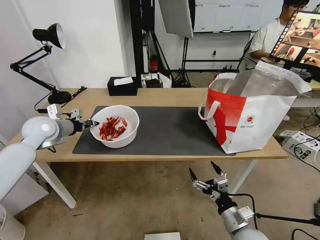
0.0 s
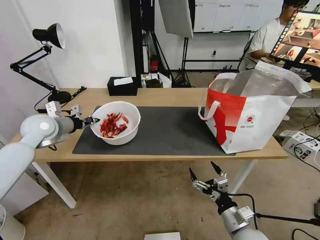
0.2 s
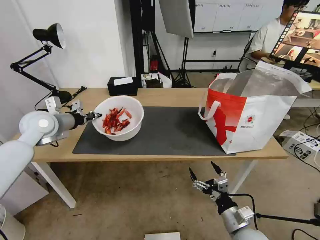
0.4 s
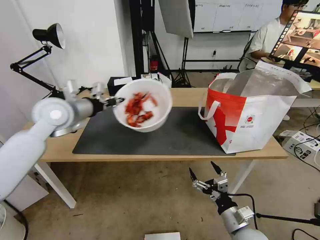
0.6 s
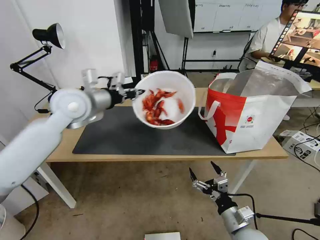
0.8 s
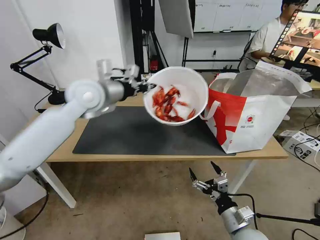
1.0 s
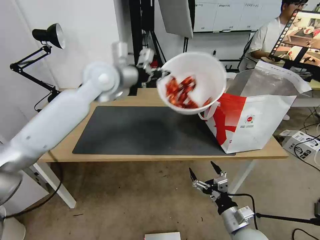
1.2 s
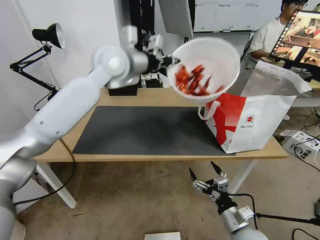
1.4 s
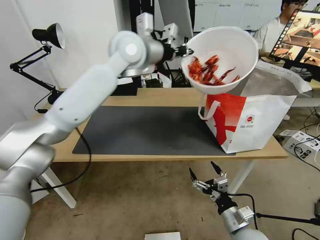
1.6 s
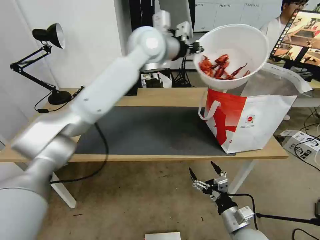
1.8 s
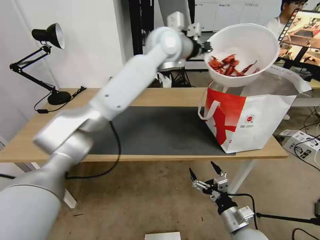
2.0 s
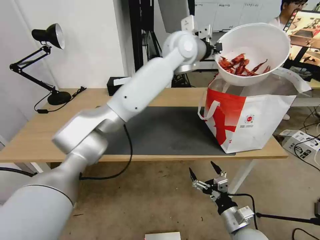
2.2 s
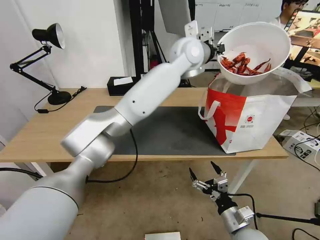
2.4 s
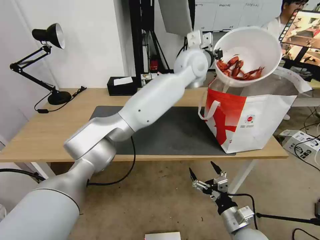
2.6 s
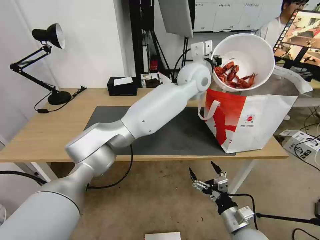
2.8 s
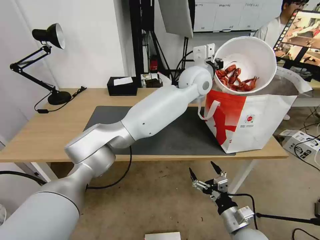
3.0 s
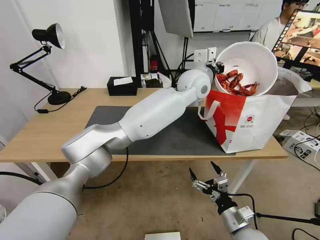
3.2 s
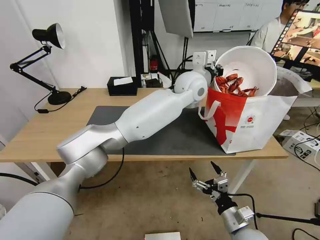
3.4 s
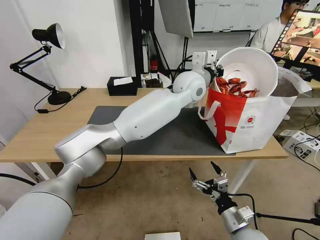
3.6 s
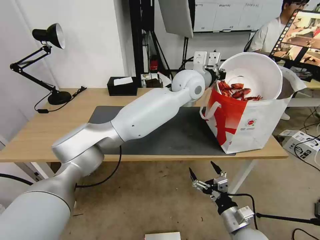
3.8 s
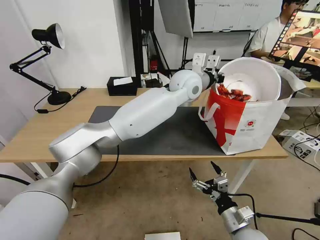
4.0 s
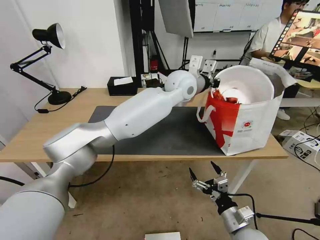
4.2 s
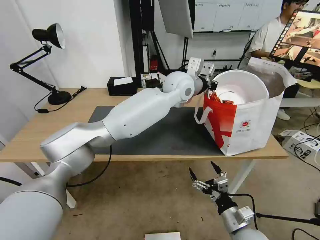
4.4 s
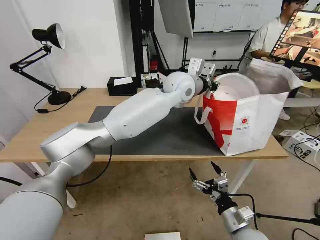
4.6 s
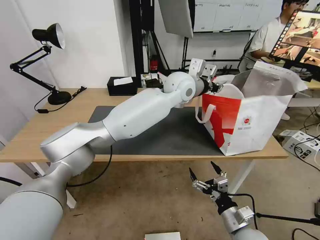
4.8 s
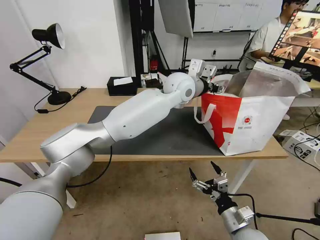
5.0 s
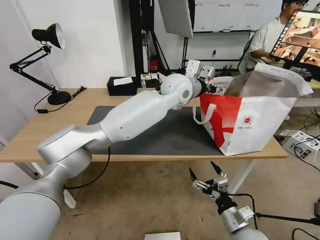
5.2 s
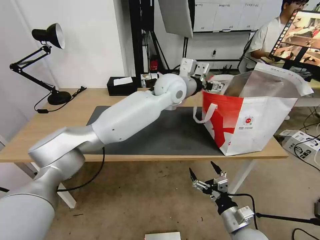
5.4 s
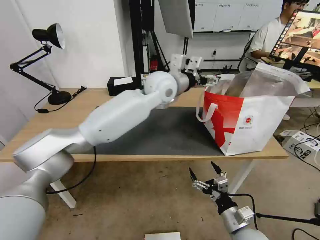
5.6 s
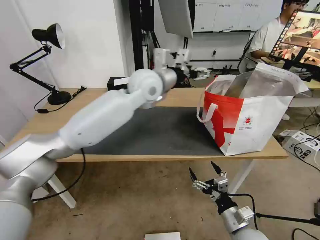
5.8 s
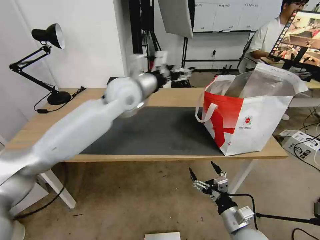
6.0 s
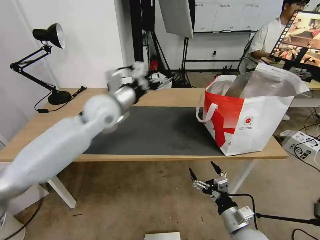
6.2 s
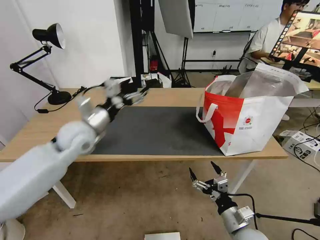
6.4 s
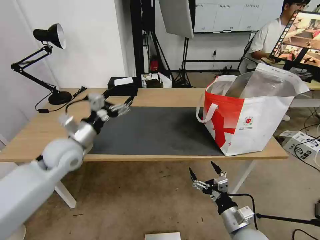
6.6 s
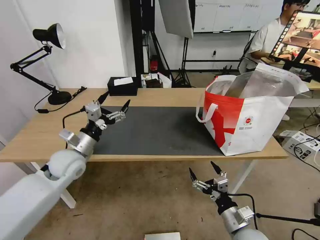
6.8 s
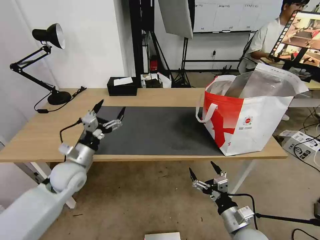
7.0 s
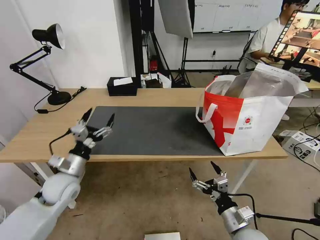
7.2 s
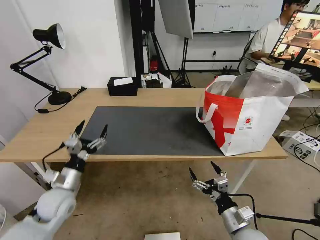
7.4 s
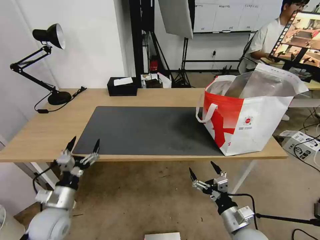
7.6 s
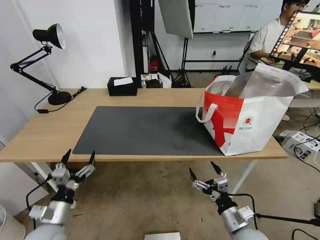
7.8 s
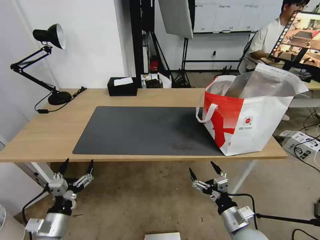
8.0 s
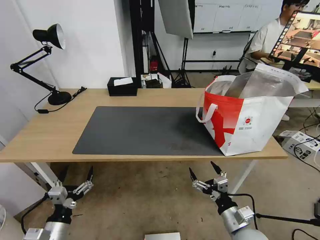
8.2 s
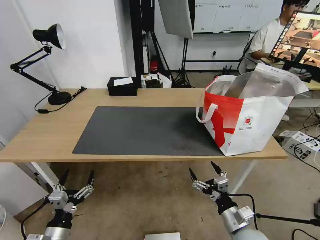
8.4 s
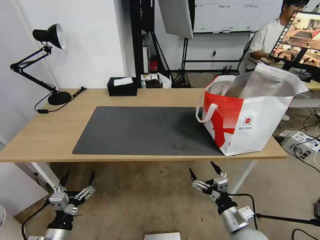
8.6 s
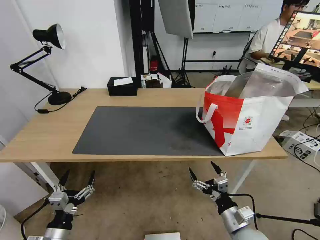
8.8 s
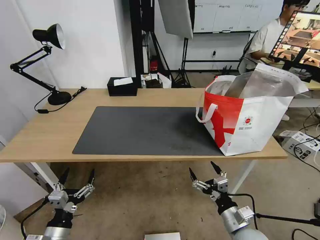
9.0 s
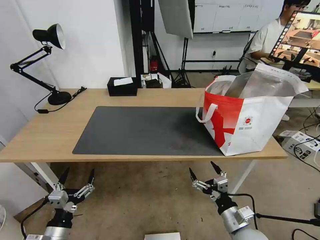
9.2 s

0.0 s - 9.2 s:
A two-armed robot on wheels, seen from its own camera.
Task of the whole recording: Pick up the trash from the table and place it into the takeout bag.
0.0 s - 1.6 s: The left gripper goes about 35 cm to the right and upward.
1.6 s - 3.0 s: The left gripper moves to the right and downward, roughly 20 cm.
4.6 s - 6.2 s: The left gripper moves to the left, some 20 cm, and opens up.
6.2 s - 7.6 s: The left gripper heads downward, backward and to the left, covering some 35 cm.
7.6 s - 9.2 s: The left gripper travels backward by approximately 10 cm.

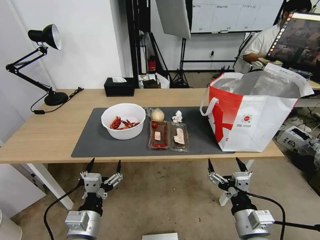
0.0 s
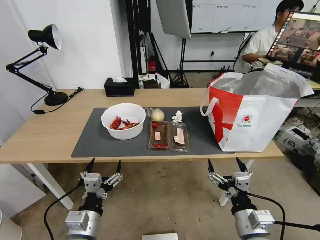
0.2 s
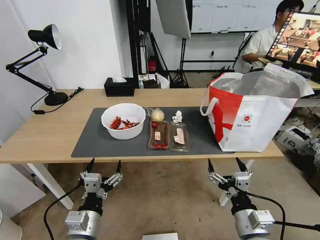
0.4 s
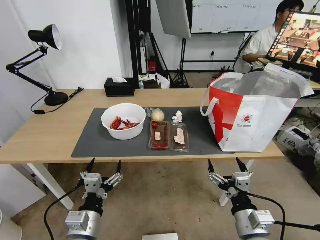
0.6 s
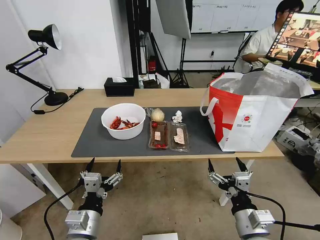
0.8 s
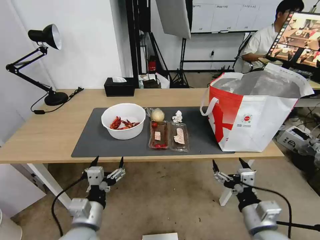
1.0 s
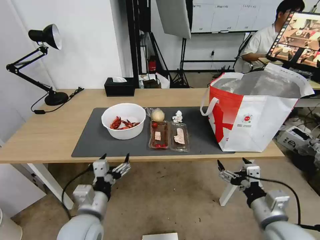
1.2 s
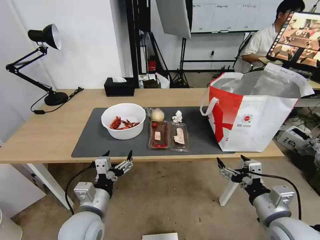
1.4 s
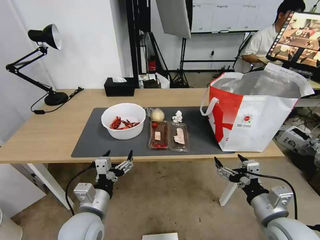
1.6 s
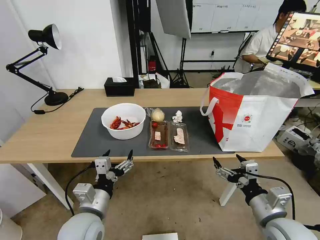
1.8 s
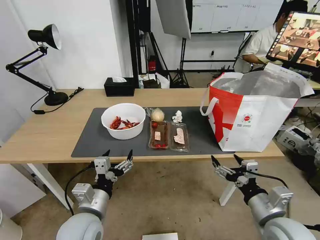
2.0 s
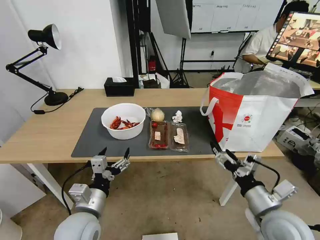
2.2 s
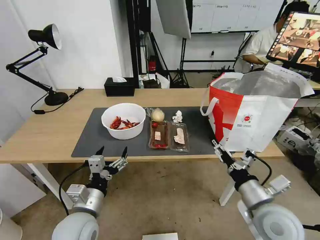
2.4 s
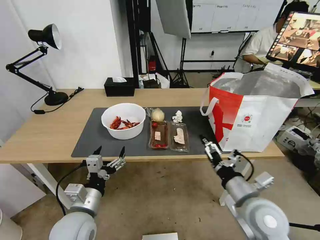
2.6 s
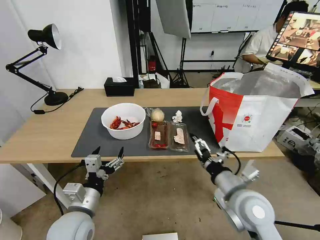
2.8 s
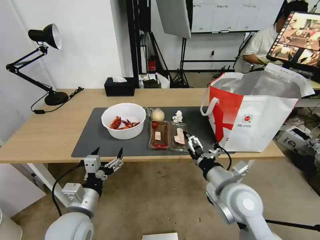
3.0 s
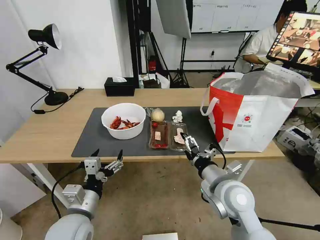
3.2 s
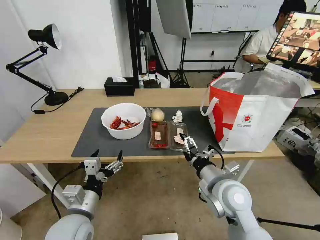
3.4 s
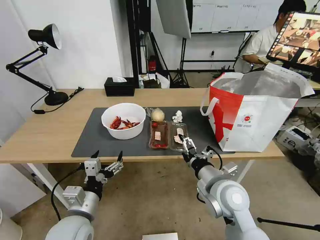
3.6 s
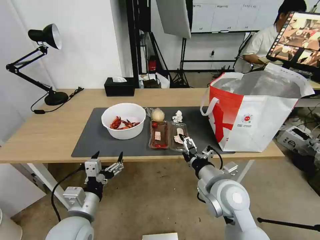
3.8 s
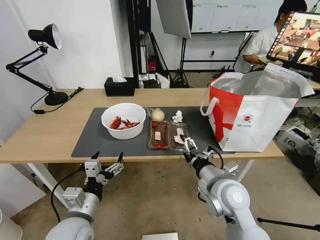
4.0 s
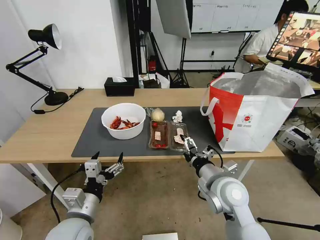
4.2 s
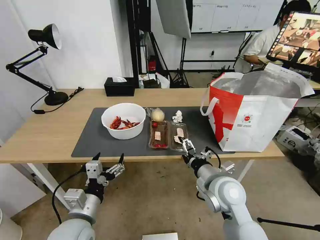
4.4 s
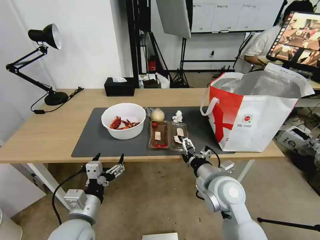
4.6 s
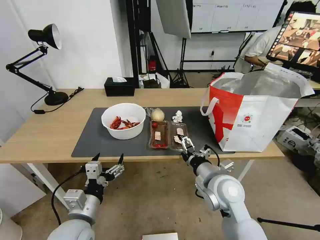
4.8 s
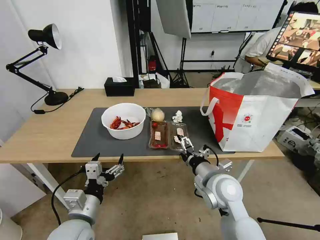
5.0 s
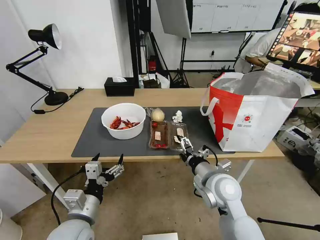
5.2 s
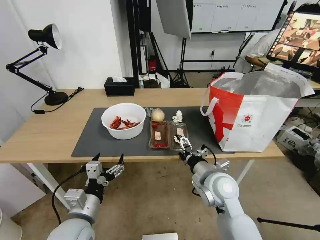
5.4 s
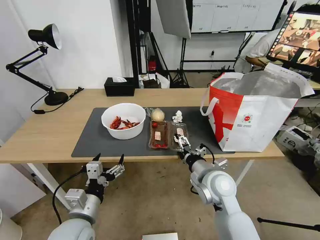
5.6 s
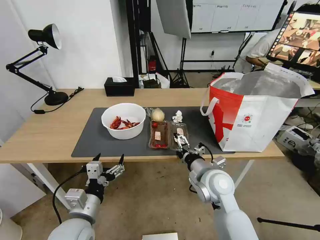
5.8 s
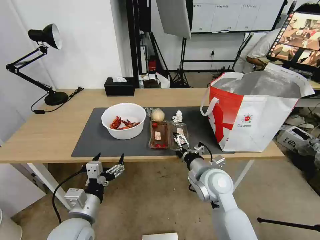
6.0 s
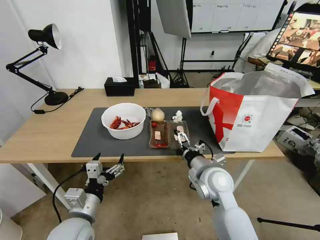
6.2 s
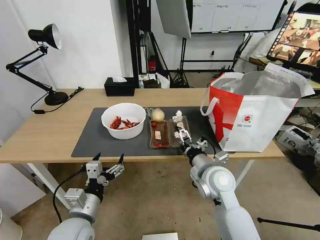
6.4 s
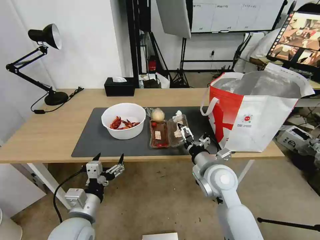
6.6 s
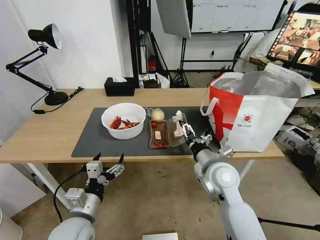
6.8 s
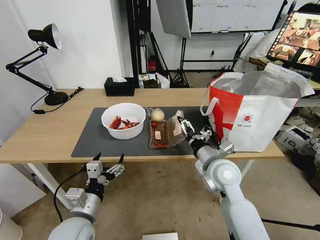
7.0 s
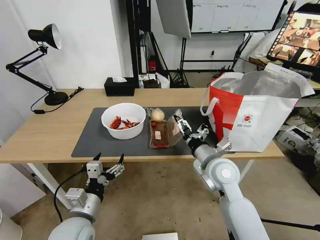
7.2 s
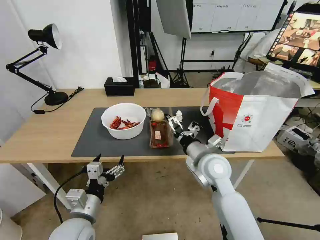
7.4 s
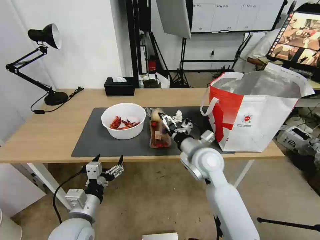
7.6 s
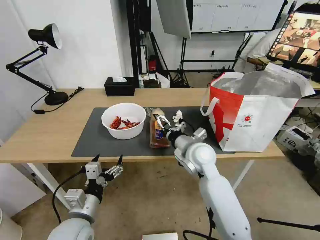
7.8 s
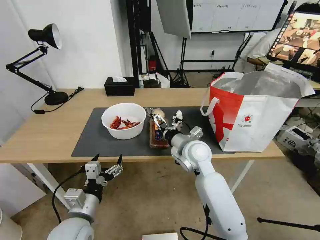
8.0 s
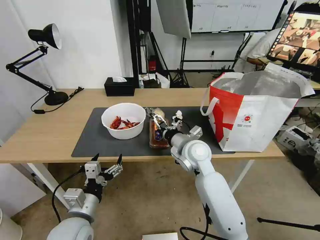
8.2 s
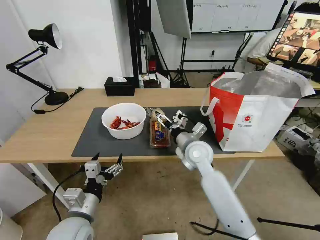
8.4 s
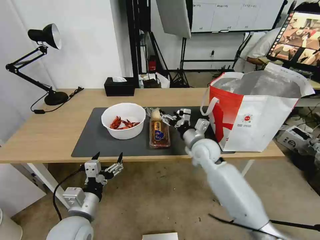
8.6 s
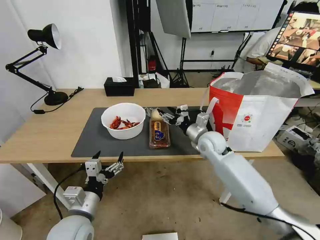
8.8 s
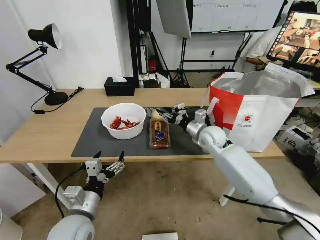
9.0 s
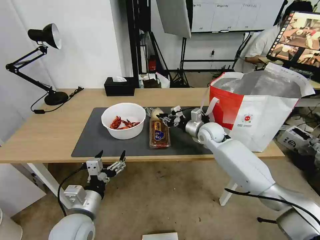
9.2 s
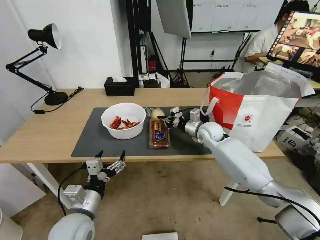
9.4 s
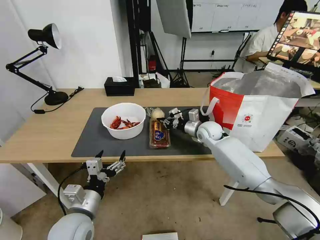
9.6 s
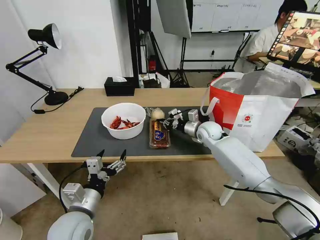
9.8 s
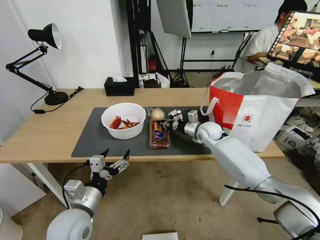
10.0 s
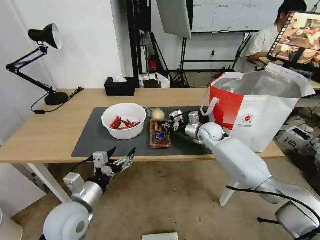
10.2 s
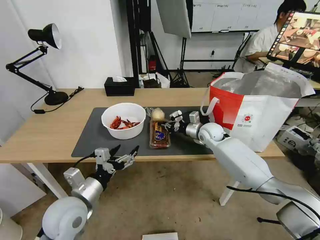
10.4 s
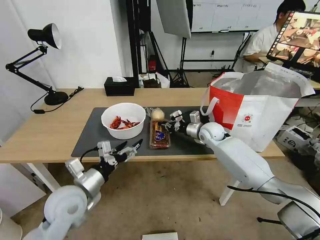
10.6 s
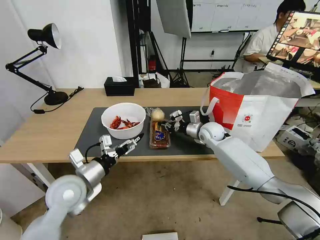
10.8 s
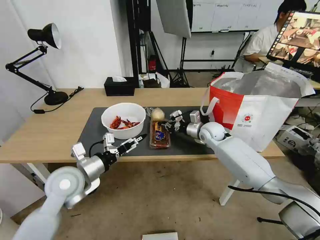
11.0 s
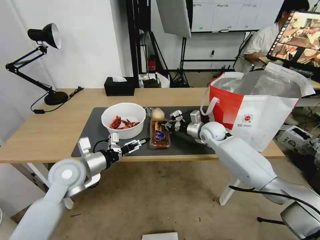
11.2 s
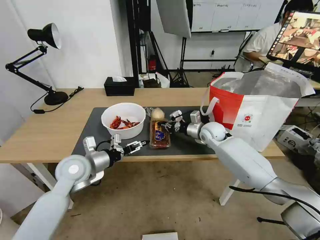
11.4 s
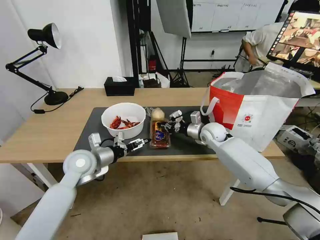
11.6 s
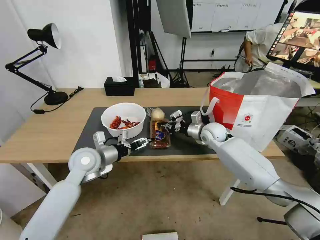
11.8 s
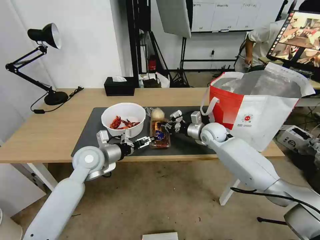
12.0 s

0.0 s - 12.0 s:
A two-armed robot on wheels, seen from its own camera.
Task of the whole recording: Pick up the trash from the table and place it into the takeout bag.
1.6 s - 3.0 s: The right gripper heads to the left and forward, covering about 15 cm.
3.0 s - 4.4 s: There are only small adjustments of the grippers.
4.4 s - 6.0 s: There are only small adjustments of the grippers.
6.0 s - 7.6 s: The right gripper ends up some 5 cm from where it was.
7.6 s - 9.0 s: The right gripper travels forward and to the right by about 15 cm, and closes up.
9.0 s - 10.4 s: The right gripper ends up about 5 cm from where it was, and closes.
10.4 s - 12.0 s: The left gripper shifts some 15 cm forward.

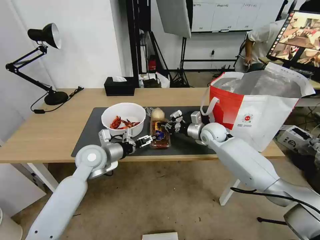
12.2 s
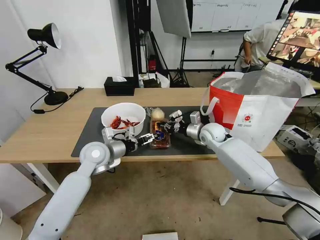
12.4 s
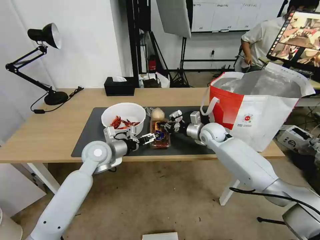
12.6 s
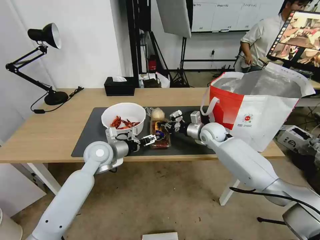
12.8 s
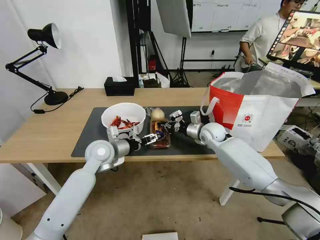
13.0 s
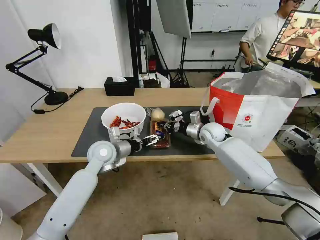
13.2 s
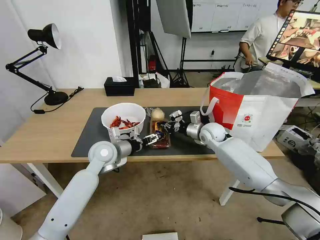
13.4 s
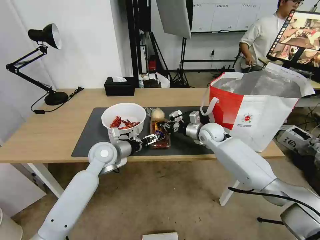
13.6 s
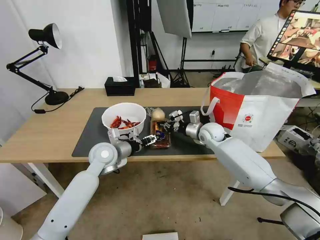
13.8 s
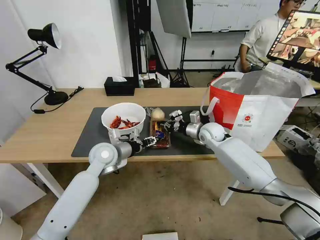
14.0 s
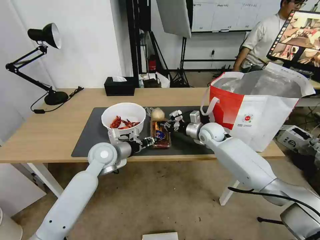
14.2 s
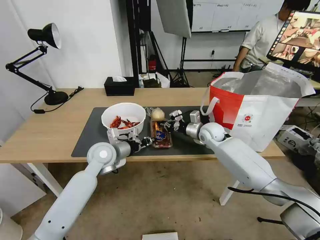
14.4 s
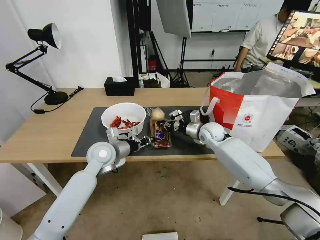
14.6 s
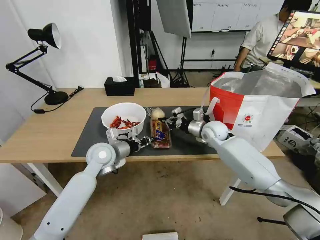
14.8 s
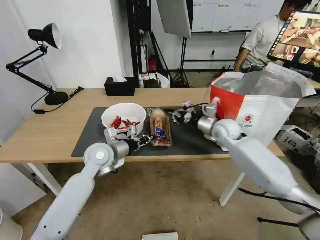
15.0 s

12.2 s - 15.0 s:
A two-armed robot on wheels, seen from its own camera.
Task of the whole recording: Pick up the trash from the table and place it into the takeout bag.
12.2 s - 13.6 s: The grippers make only small movements.
13.6 s - 15.0 s: The right gripper changes place by roughly 5 cm; the left gripper closes.
